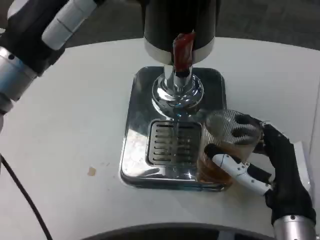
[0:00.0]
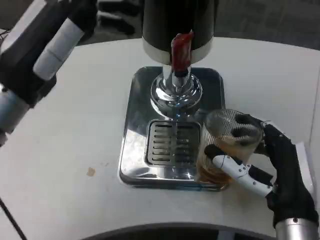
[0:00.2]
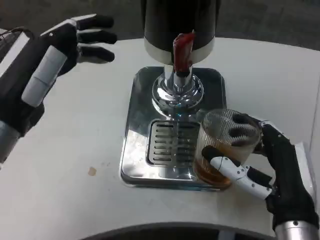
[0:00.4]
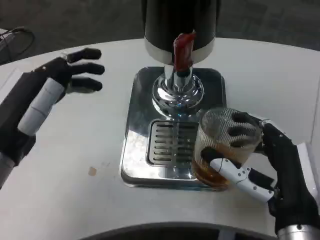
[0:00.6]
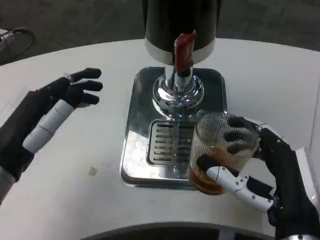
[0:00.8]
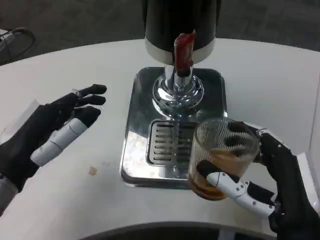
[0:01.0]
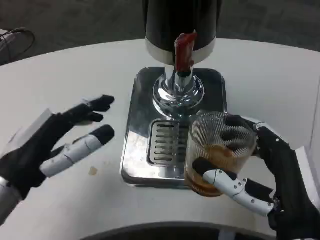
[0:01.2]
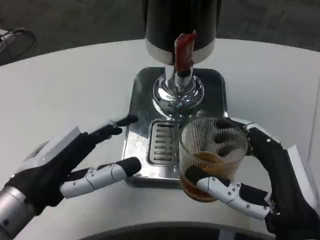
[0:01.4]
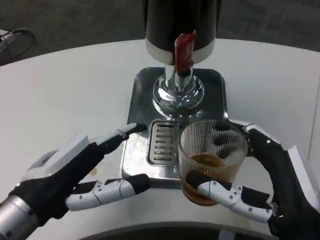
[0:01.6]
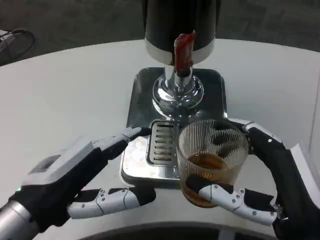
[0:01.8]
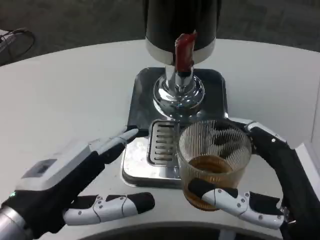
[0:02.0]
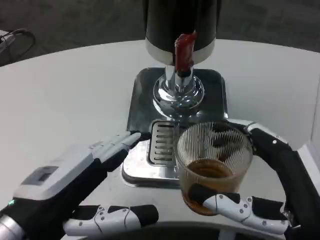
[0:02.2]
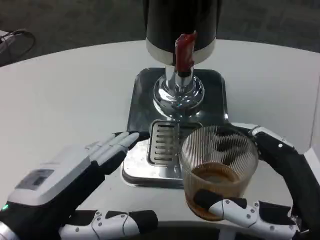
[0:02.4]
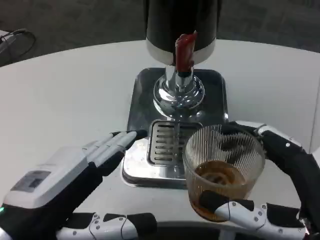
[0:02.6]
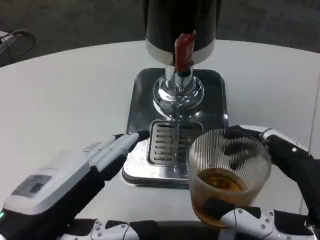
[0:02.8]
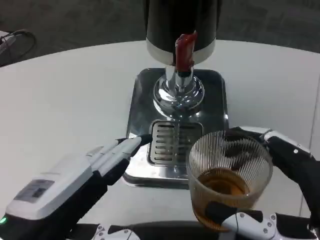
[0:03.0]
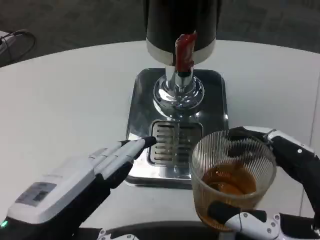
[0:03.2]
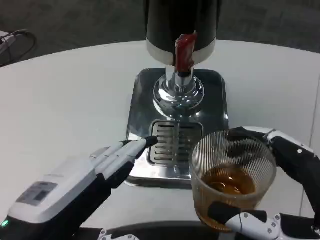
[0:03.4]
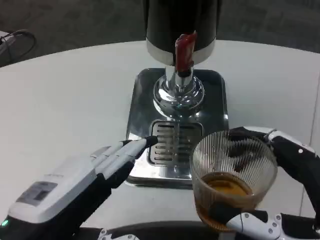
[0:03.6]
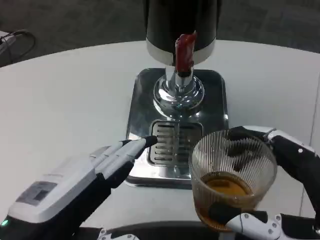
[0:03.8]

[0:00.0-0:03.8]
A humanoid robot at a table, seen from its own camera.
Task of the whole recording: Grasp the cup under the faucet to collect the drink, then remove the cup.
0:00.0 to 0:01.2: The left hand travels downward and backward by approximately 15 cm. The right hand moves roughly 5 cm.
0:01.2 to 0:02.6: The right hand shifts by approximately 5 cm. The left hand shifts approximately 5 cm backward.

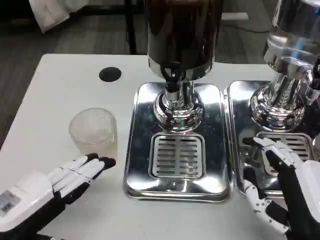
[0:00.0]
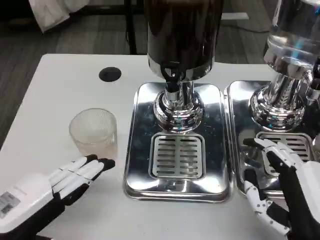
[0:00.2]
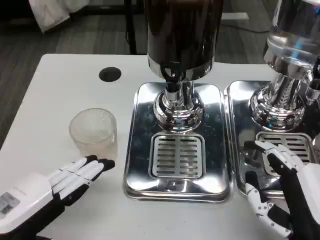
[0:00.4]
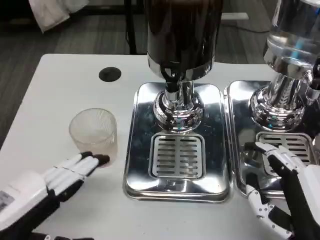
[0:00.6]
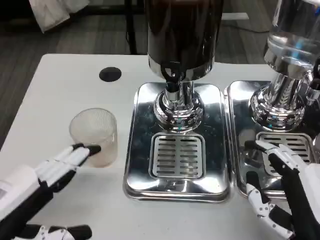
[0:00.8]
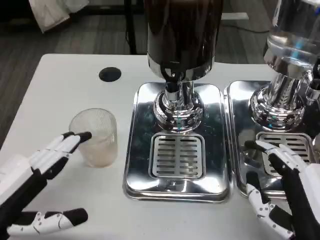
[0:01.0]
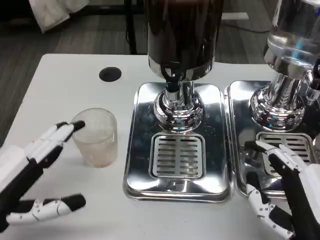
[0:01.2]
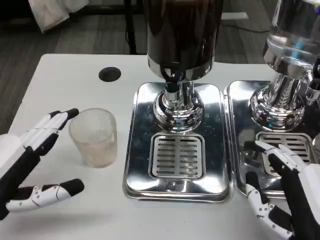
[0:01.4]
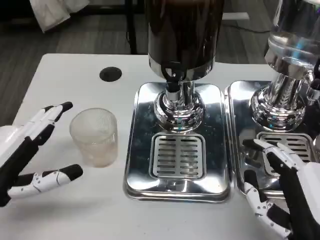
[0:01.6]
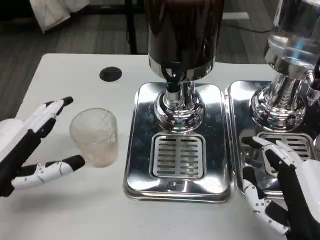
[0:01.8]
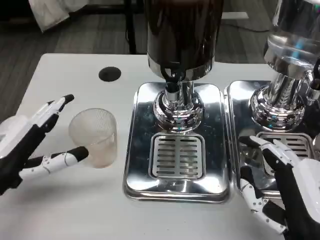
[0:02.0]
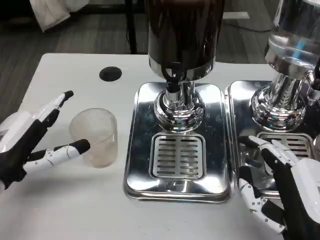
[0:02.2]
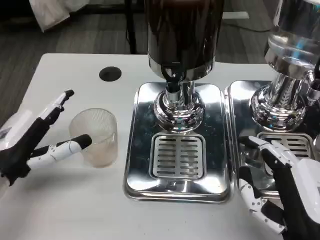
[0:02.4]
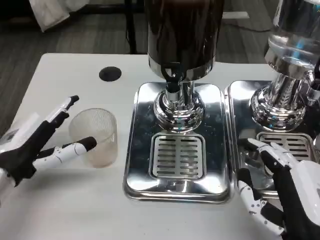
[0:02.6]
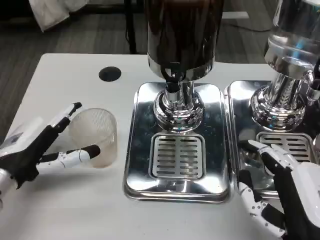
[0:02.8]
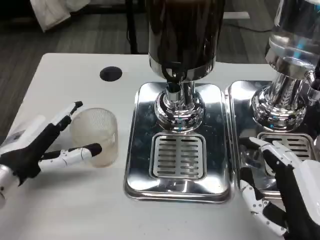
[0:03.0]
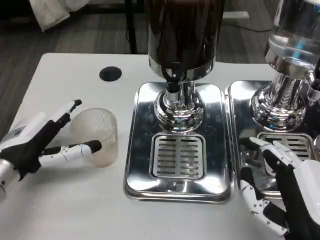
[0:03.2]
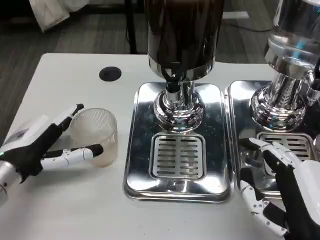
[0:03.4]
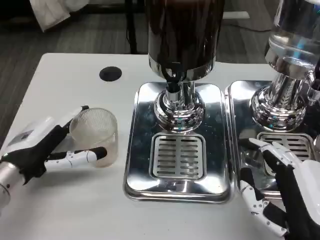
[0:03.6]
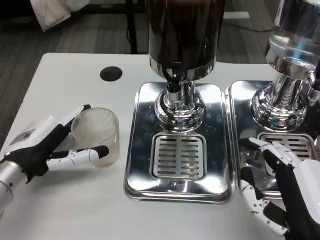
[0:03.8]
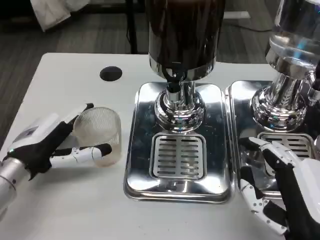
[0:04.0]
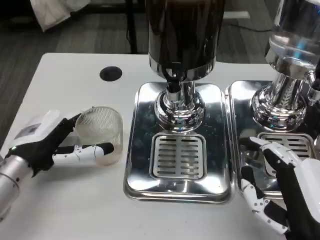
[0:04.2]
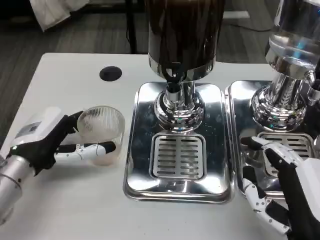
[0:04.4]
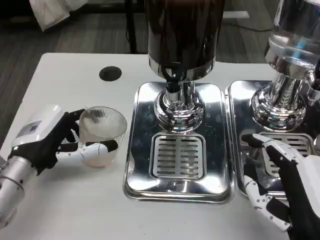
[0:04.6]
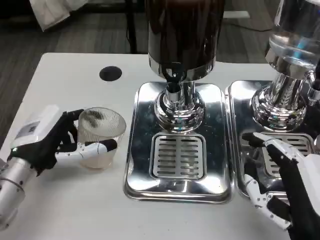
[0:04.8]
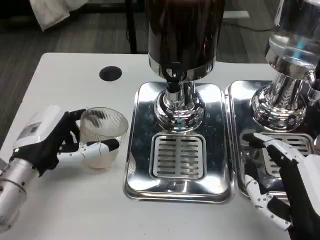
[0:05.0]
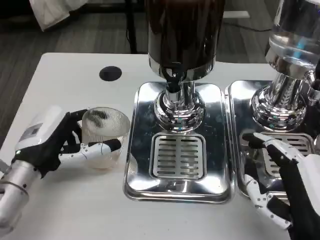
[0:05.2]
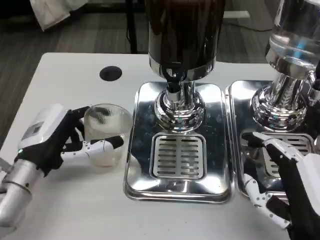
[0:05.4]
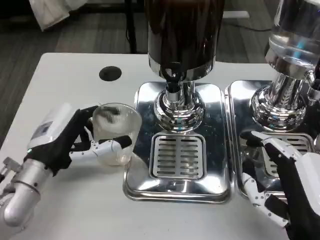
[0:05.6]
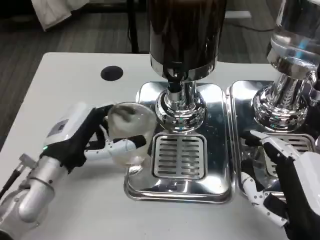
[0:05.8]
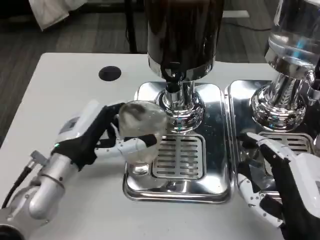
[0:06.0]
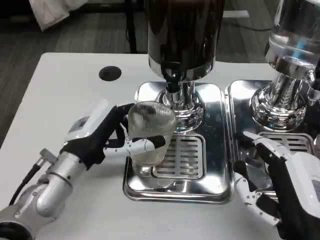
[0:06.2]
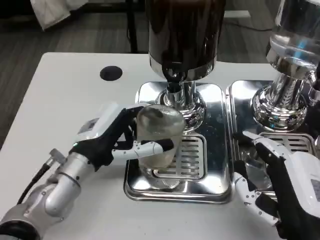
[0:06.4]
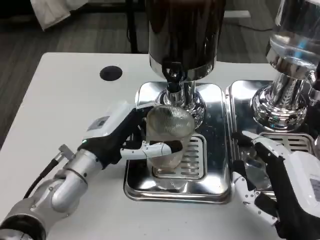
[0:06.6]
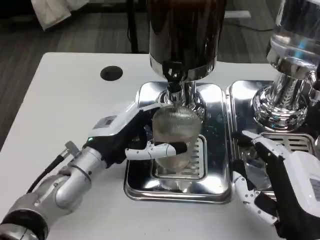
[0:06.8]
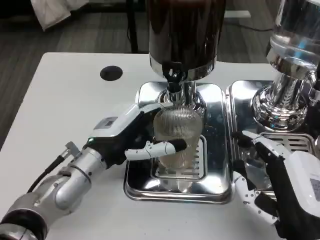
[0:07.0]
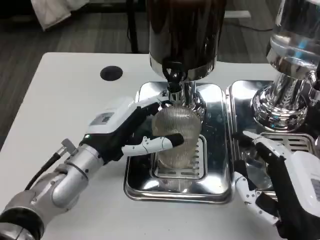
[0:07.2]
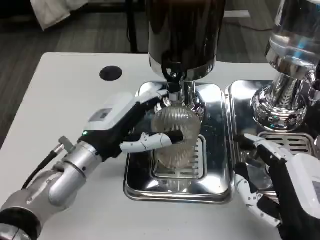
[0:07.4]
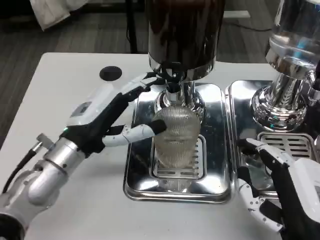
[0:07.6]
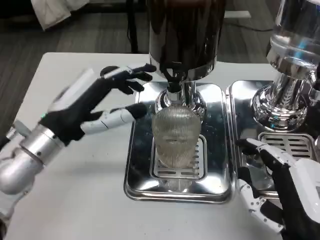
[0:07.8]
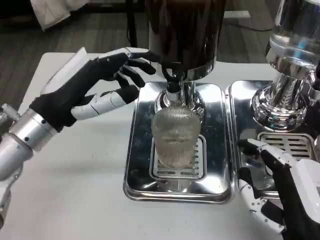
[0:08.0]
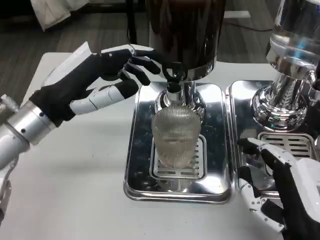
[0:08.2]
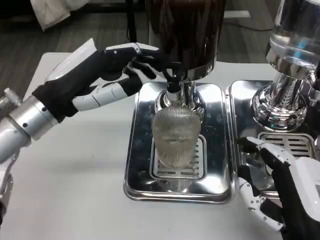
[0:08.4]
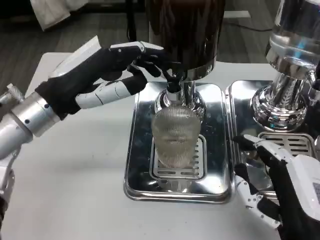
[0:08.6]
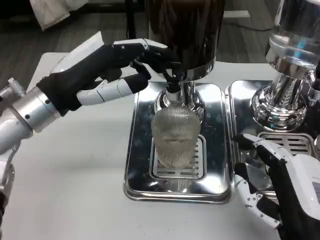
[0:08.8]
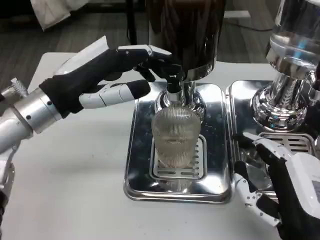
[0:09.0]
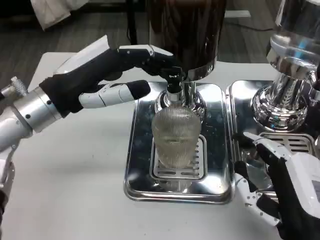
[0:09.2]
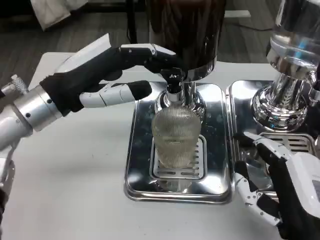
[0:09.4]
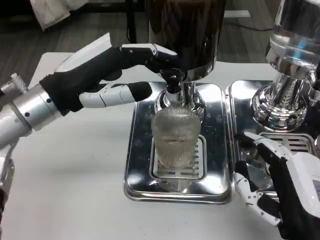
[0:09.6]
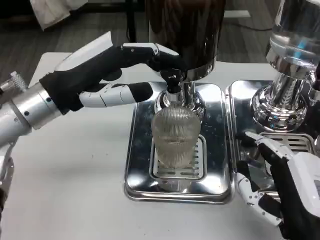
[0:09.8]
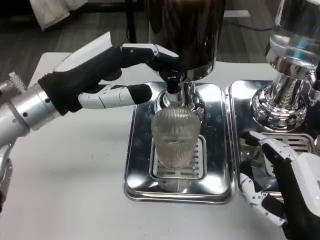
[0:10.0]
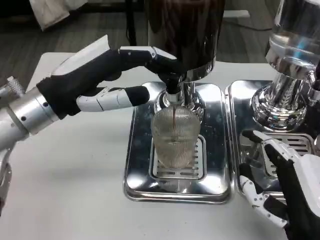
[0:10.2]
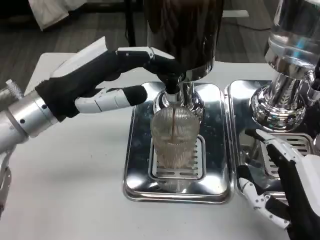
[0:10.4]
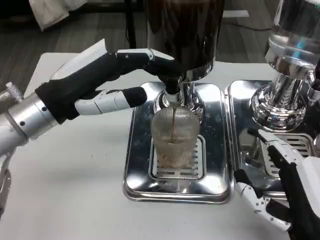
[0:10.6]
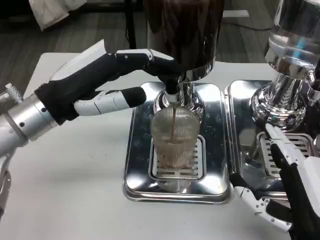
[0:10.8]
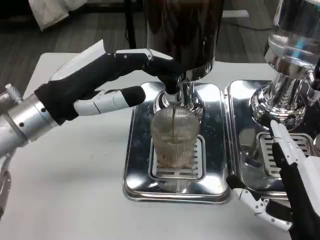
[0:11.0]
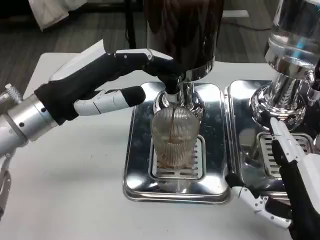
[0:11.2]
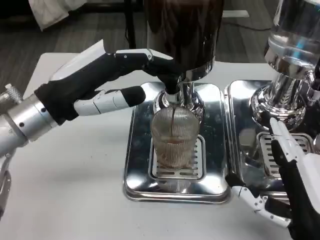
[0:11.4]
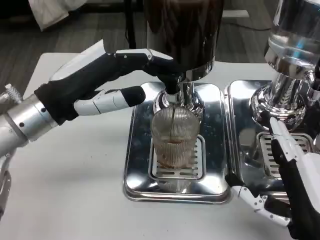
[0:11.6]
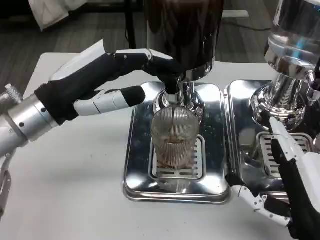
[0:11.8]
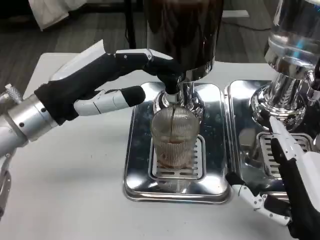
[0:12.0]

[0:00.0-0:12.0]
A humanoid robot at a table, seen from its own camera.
Task of the whole recording: Grasp the cup under the faucet to collect the drink, then remove the cup.
0:00.0 to 0:01.6: The hands make only small movements.
0:01.6 to 0:03.0: The left hand heads forward, covering some 5 cm.
0:03.0 to 0:04.4: The hands move only a little.
0:04.4 to 0:06.0: The left hand travels to the right by roughly 5 cm.
0:07.6 to 0:09.0: The left hand is displaced upward by about 10 cm.
0:09.0 to 0:12.0: The two hands keep their place.

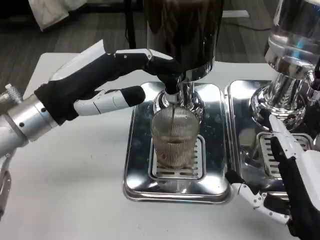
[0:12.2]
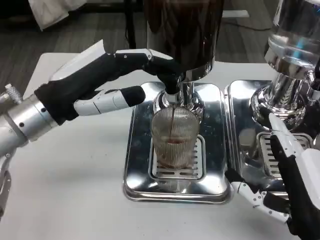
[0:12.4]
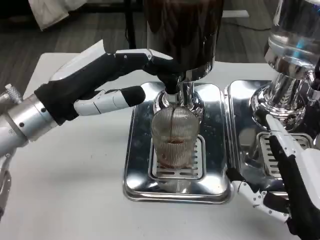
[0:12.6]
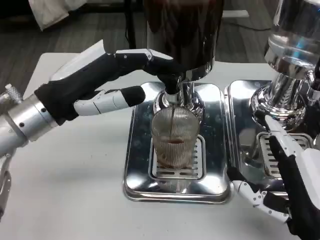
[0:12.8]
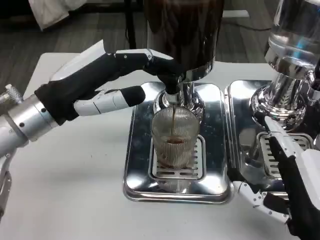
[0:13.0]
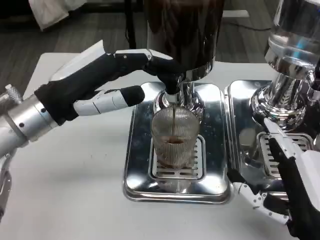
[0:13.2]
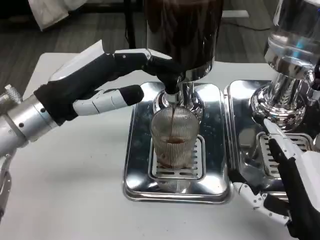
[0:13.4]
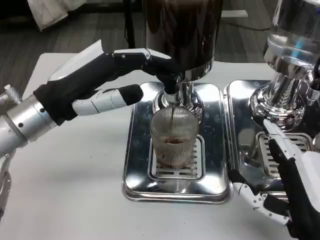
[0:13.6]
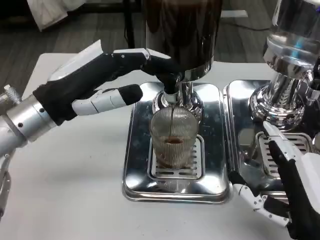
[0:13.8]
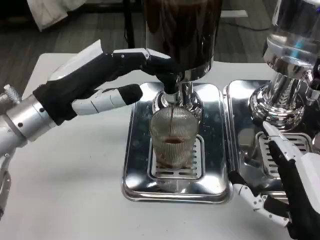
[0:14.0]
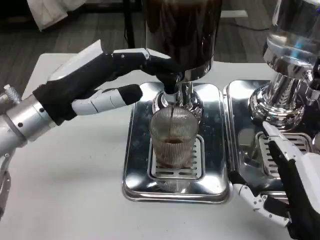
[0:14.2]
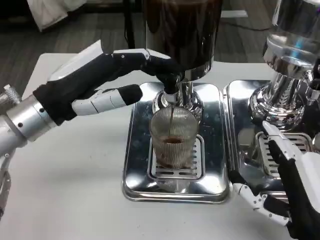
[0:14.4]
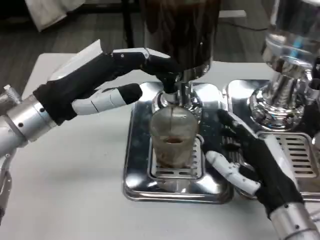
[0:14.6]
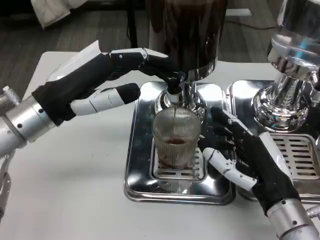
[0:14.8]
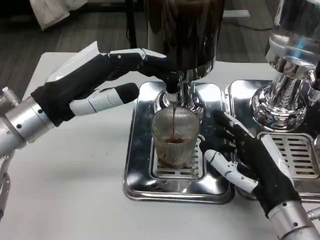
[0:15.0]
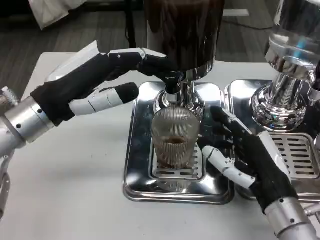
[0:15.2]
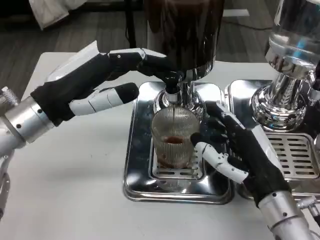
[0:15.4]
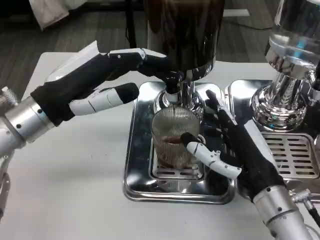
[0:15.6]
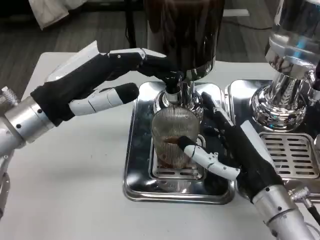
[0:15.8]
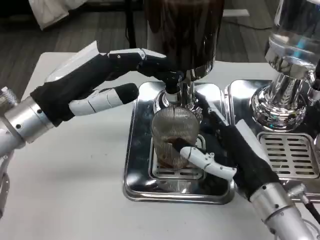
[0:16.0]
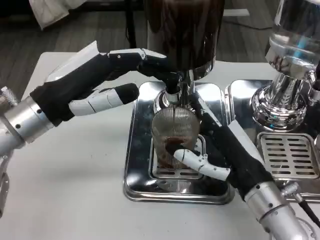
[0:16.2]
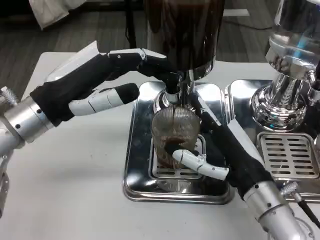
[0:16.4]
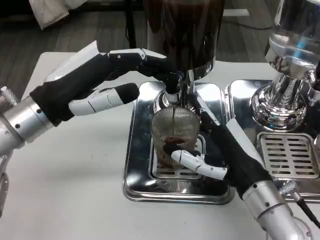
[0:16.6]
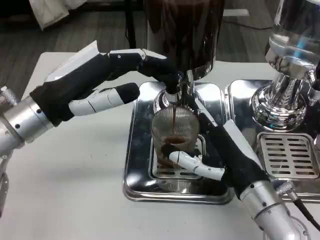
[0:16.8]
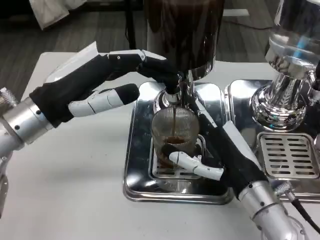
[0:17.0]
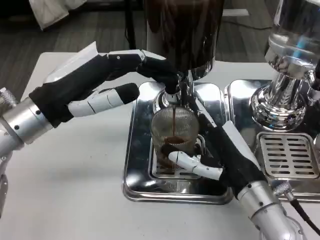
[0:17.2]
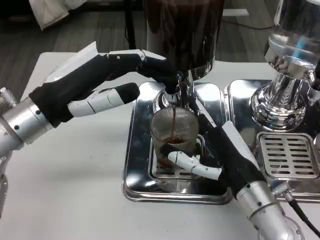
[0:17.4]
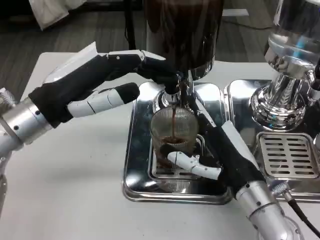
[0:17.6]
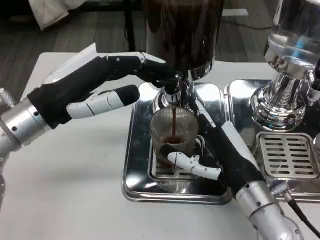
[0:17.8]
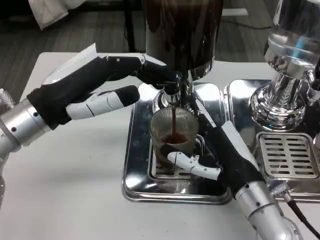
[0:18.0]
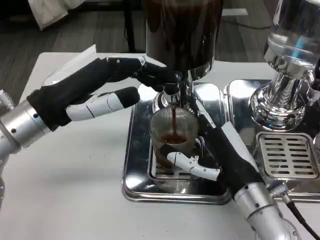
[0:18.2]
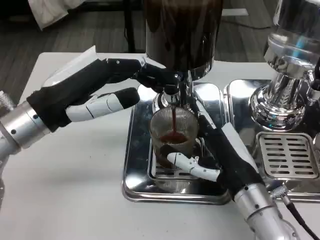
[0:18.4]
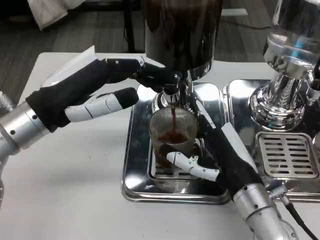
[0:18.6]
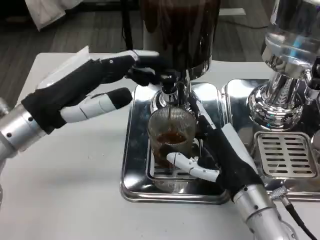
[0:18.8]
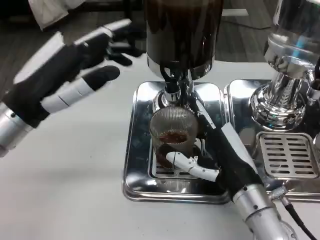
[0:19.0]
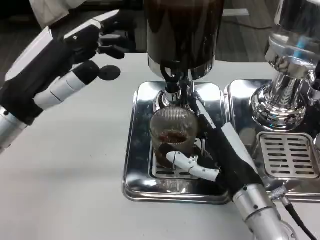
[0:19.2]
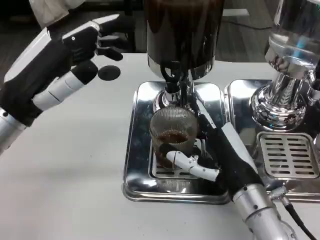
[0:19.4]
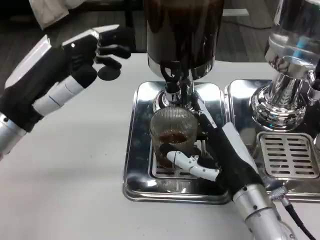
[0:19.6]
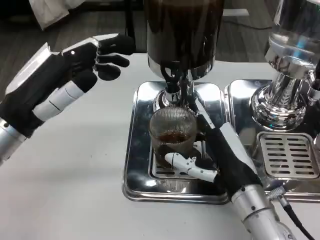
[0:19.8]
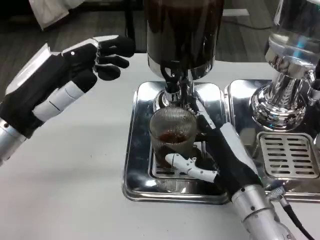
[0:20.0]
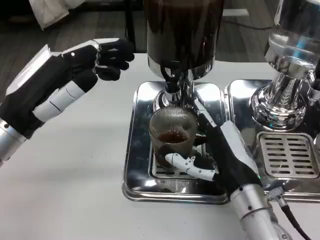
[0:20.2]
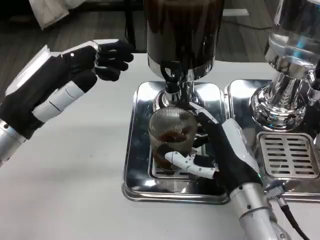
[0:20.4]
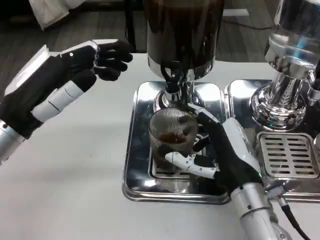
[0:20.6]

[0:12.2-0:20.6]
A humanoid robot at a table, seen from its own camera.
Task of the whole recording: Grasp the cup under the faucet to collect the drink, then remove the cup.
0:12.2 to 0:13.6: The two hands keep their place.
0:13.6 to 0:15.0: The right hand shifts about 5 cm forward.
0:15.0 to 0:17.8: There are only small adjustments of the hands.
0:19.2 to 0:20.6: There are only small adjustments of the hands.
